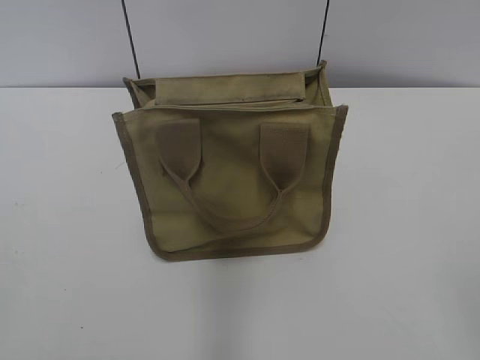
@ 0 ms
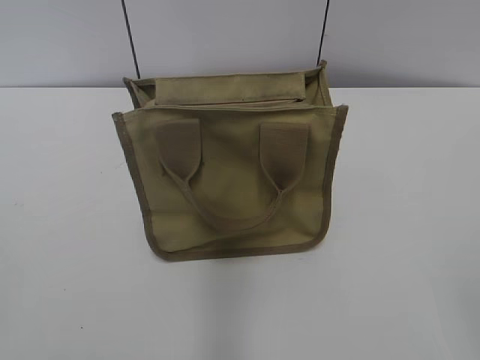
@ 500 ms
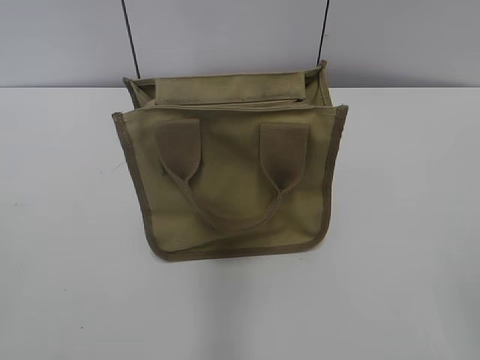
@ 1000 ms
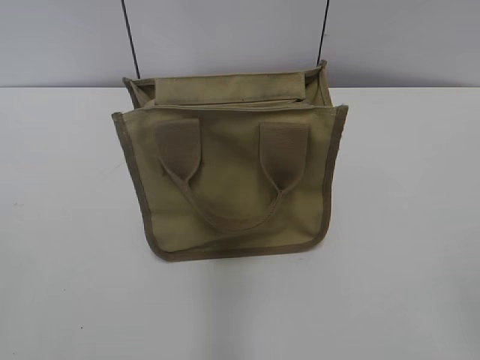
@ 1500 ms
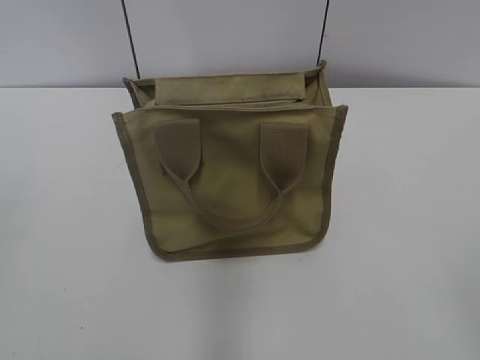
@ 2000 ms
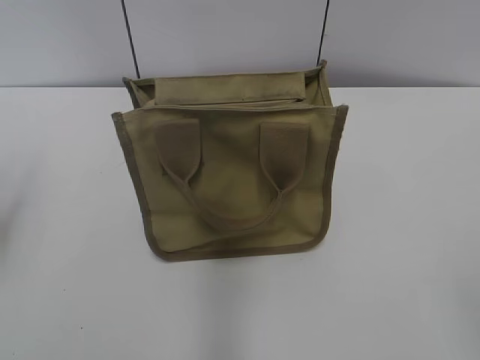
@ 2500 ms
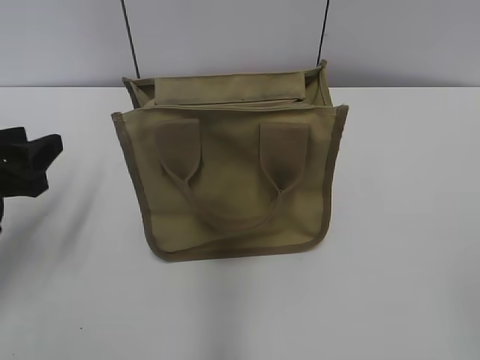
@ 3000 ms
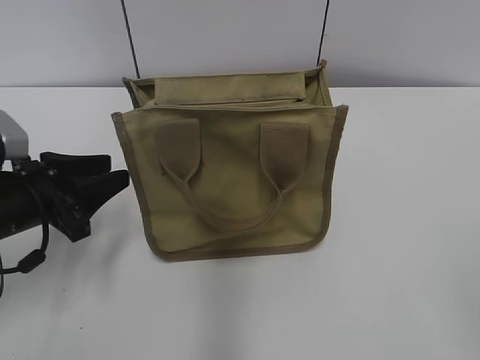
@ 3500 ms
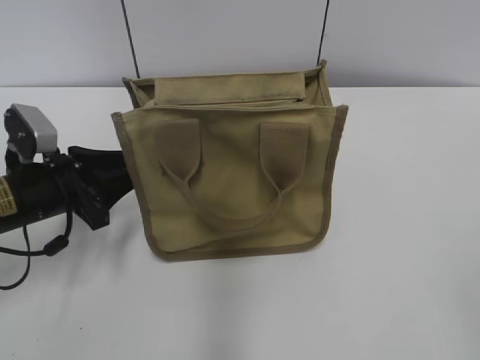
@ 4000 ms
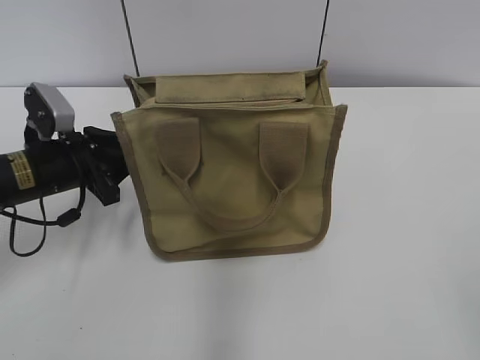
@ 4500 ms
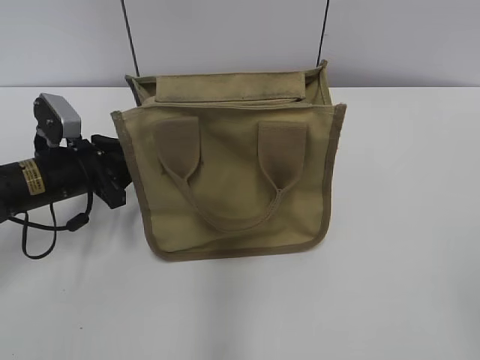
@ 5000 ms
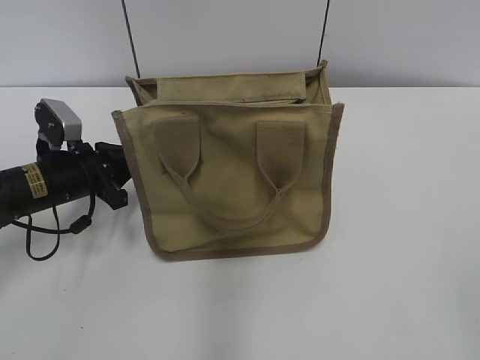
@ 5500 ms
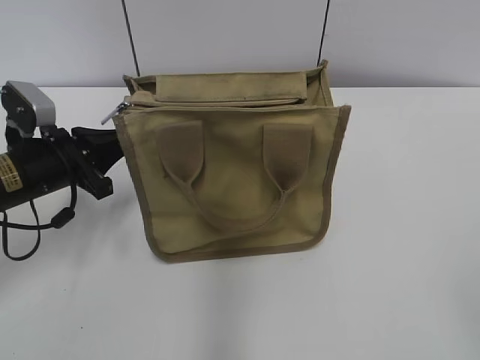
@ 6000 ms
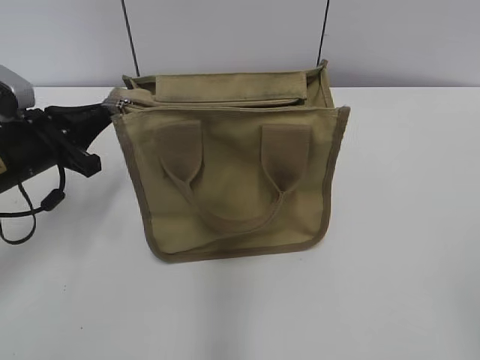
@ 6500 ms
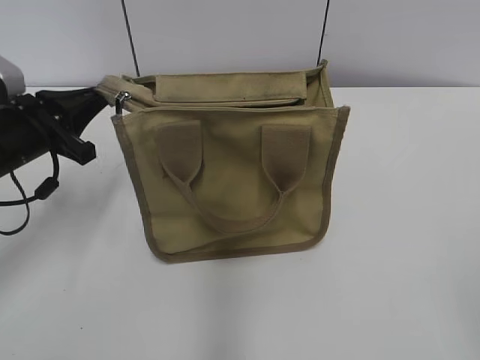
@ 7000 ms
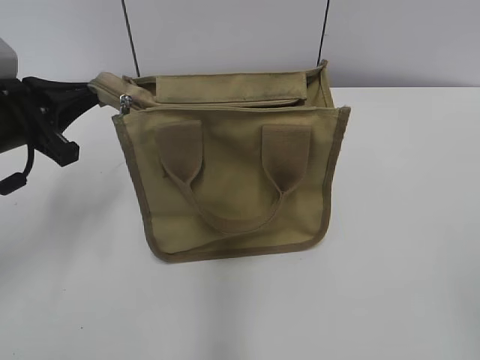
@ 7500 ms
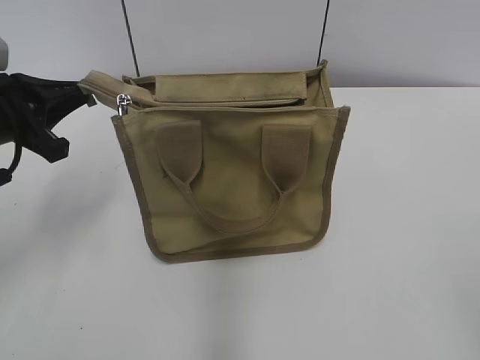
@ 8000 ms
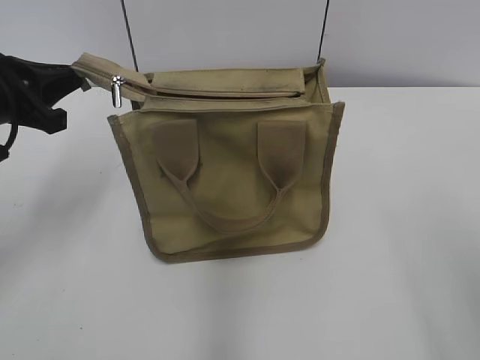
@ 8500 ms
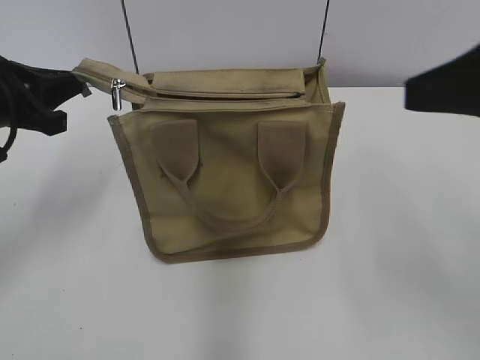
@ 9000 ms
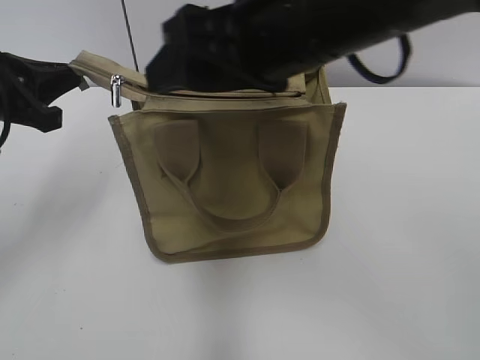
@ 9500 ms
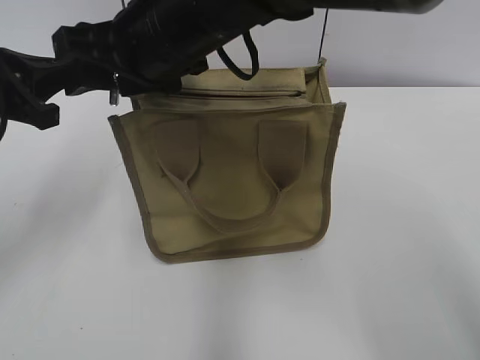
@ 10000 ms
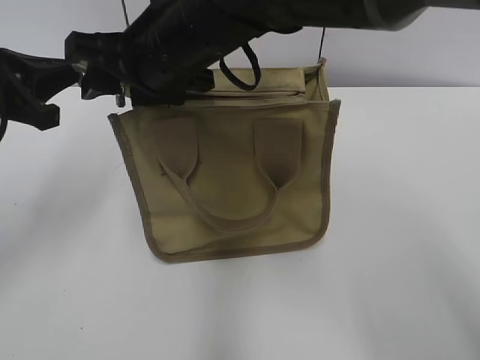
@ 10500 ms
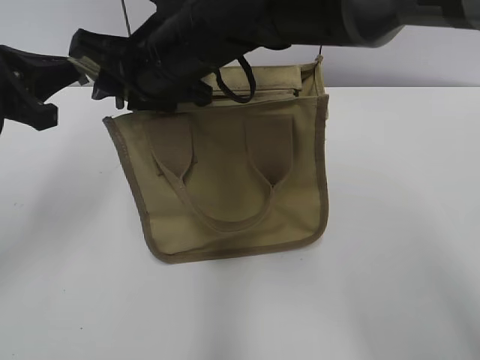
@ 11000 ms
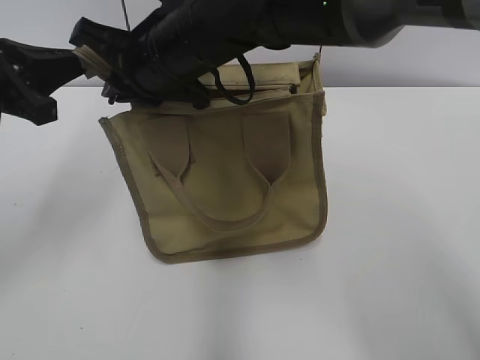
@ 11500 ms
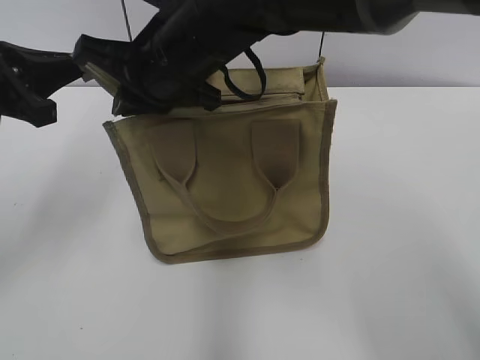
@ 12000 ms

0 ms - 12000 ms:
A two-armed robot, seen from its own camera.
2000 ms - 4000 ms: The left gripper heads forward, downward and to the right, covering about 30 cm.
4000 ms - 6000 ms: The left gripper closes.
6000 ms - 8000 ms: The left gripper is displaced upward by approximately 10 cm.
8000 ms - 10000 ms: The right gripper goes approximately 50 cm to the left and forward.
10000 ms - 12000 ms: The right gripper closes.

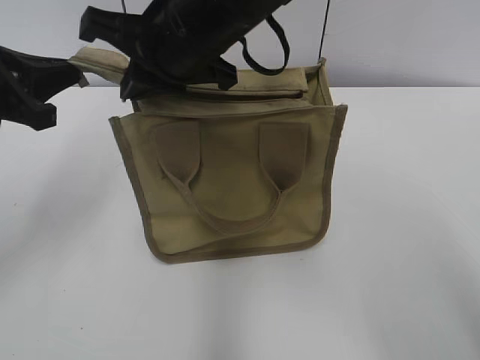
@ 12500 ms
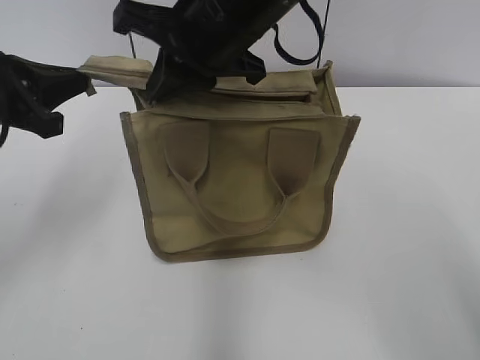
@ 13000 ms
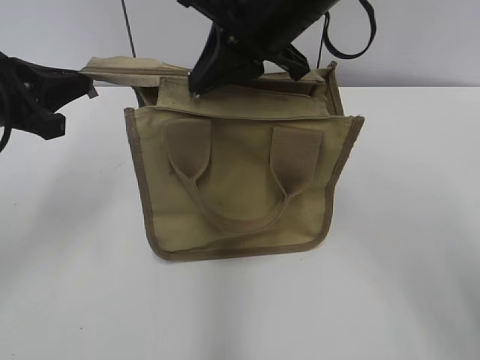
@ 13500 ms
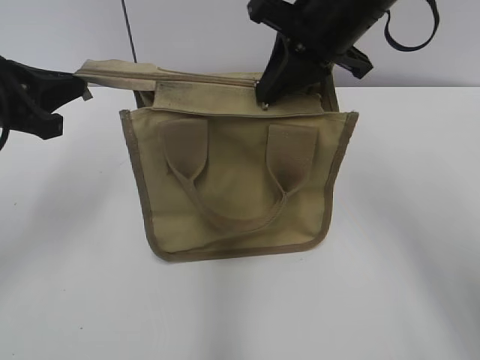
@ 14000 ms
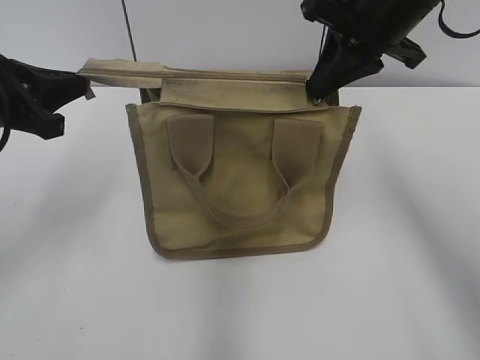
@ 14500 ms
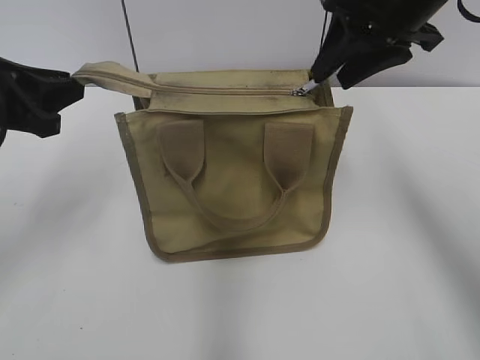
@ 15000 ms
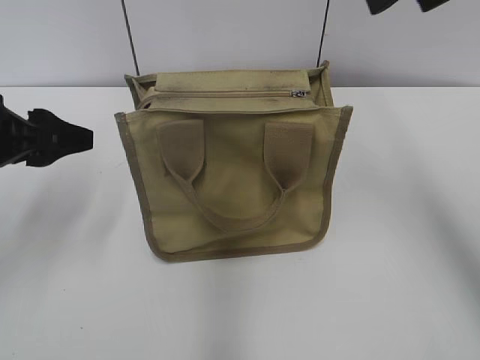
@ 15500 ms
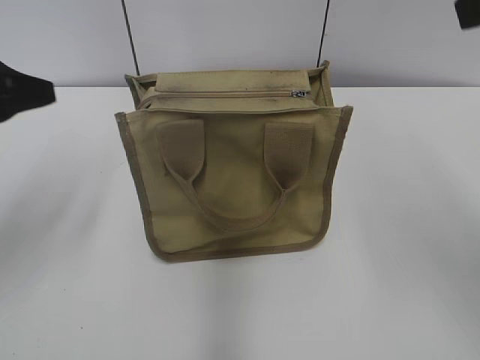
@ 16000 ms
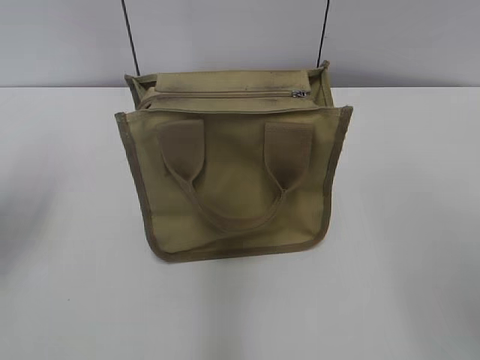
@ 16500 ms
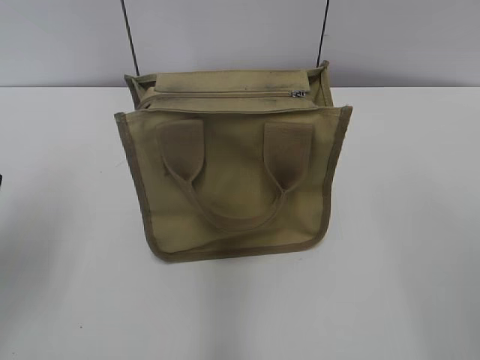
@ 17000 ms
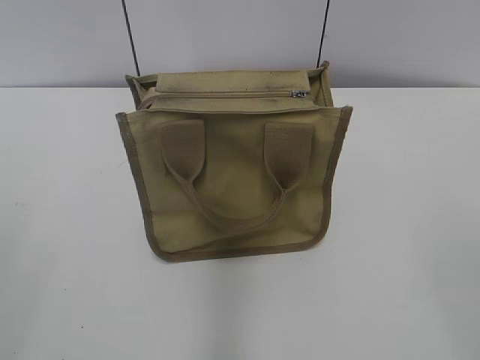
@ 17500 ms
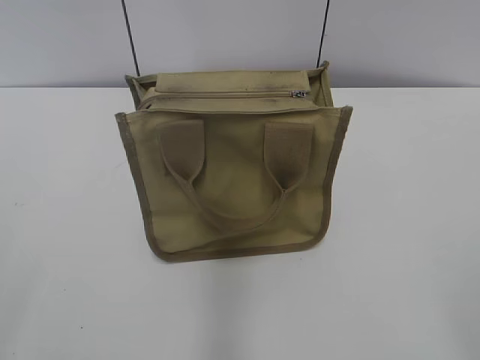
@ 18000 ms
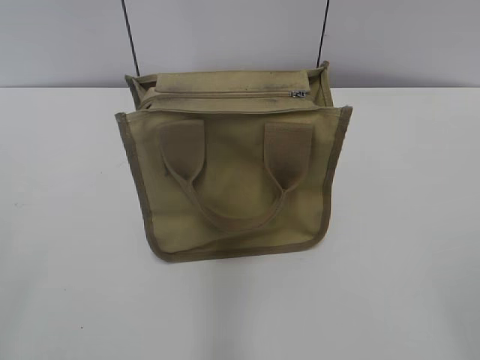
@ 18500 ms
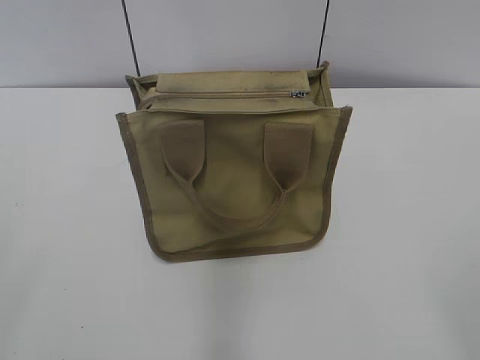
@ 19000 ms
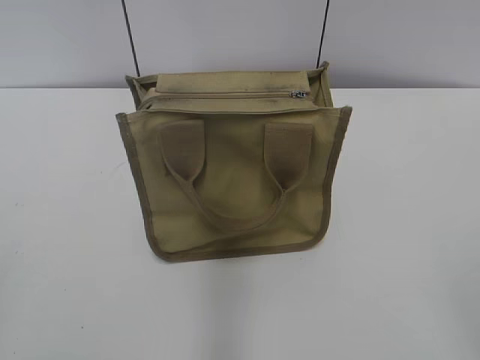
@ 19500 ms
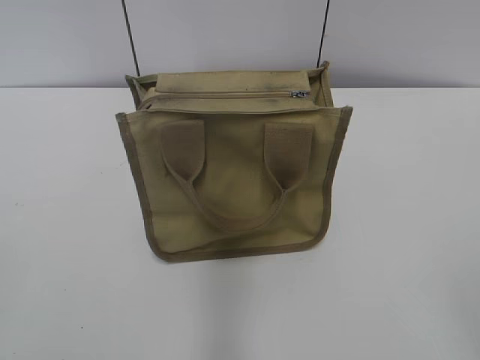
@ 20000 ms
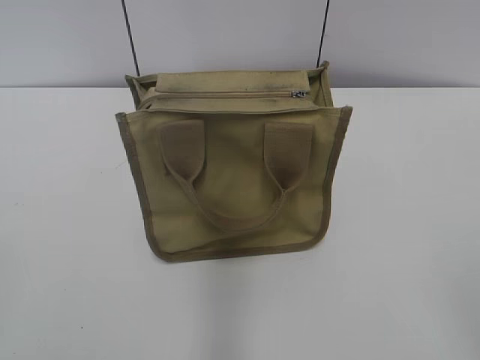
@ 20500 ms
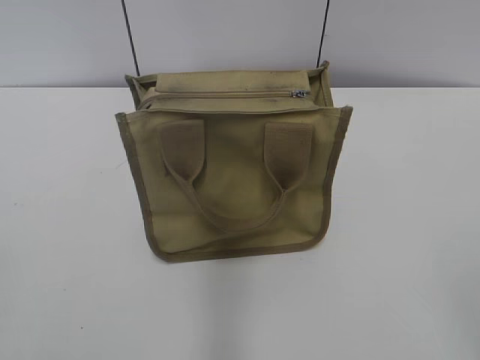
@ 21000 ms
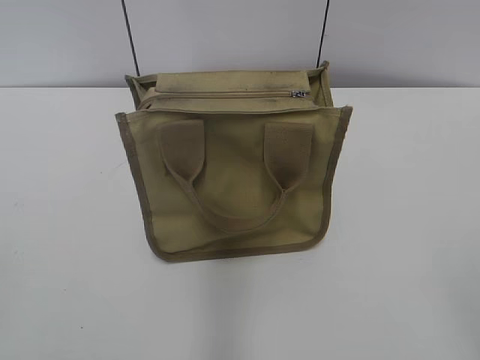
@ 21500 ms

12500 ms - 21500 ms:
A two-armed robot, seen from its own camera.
Step, 12500 ms - 14500 ms: Zip up the bag with your right hand.
12500 ms - 14500 ms: The right gripper moves to the right, roughly 15 cm.
14500 ms - 17000 ms: The left gripper is displaced backward by about 10 cm, and opens its fingers. The right gripper travels backward by approximately 30 cm, and opens.
17000 ms - 19500 ms: The left gripper travels backward by approximately 20 cm.

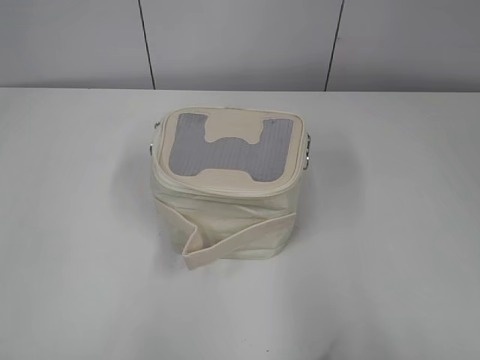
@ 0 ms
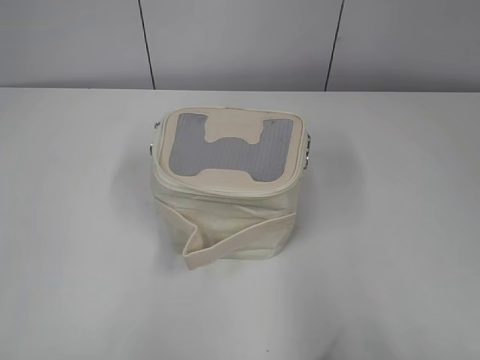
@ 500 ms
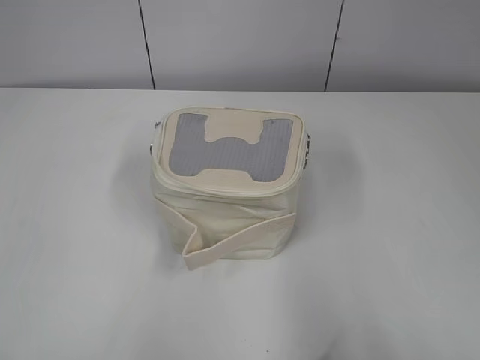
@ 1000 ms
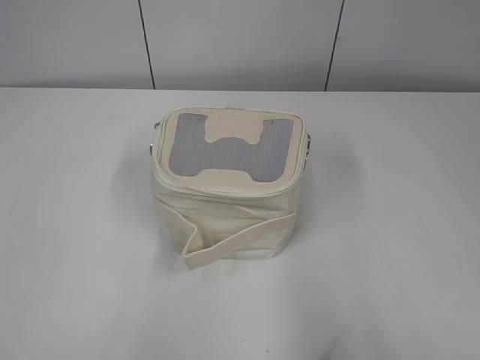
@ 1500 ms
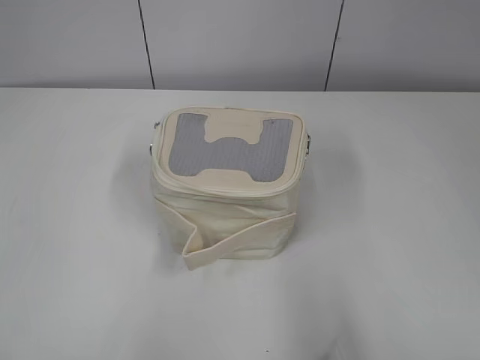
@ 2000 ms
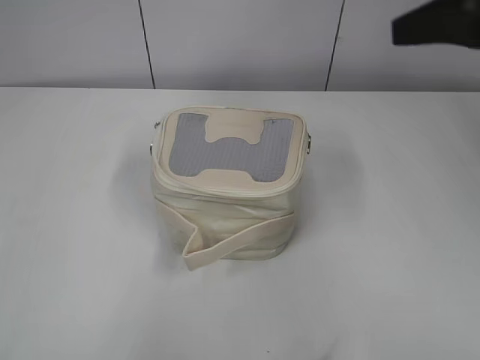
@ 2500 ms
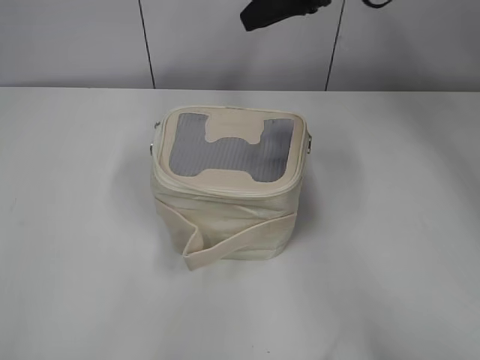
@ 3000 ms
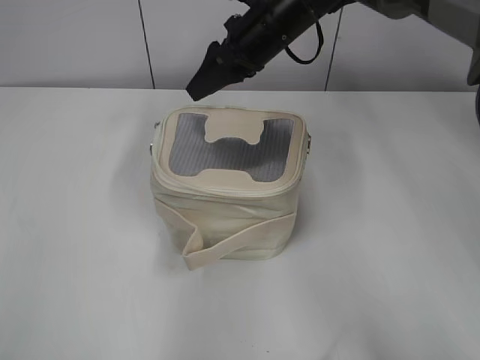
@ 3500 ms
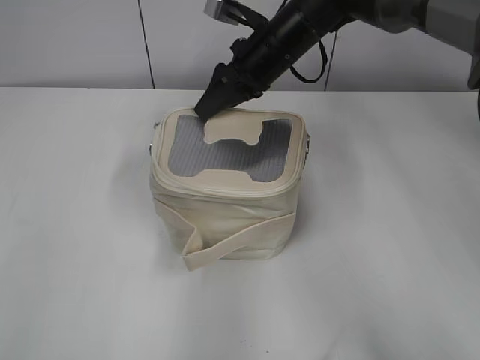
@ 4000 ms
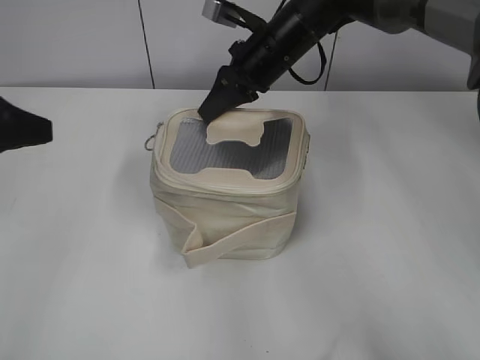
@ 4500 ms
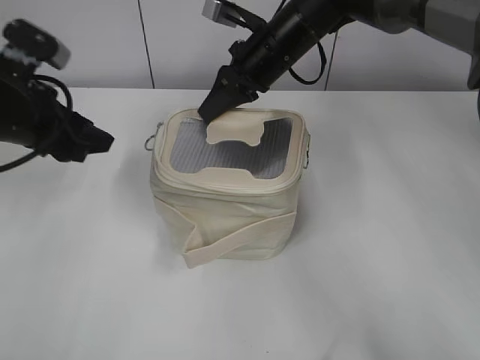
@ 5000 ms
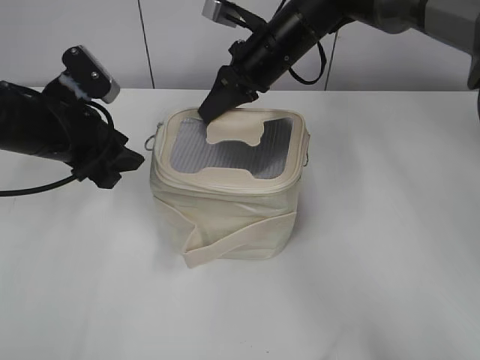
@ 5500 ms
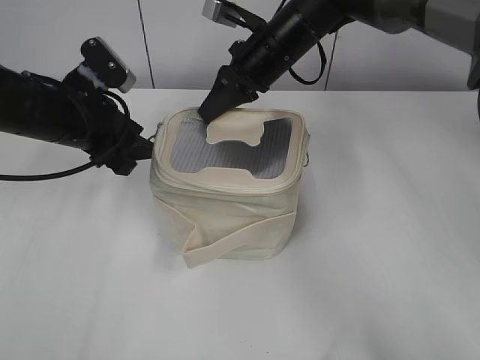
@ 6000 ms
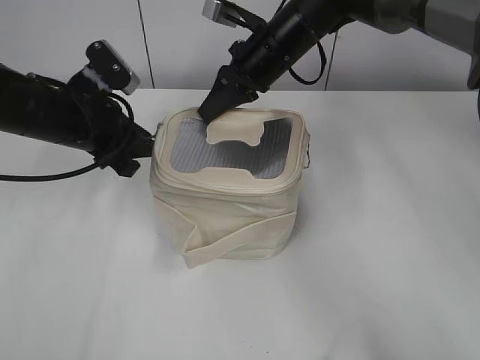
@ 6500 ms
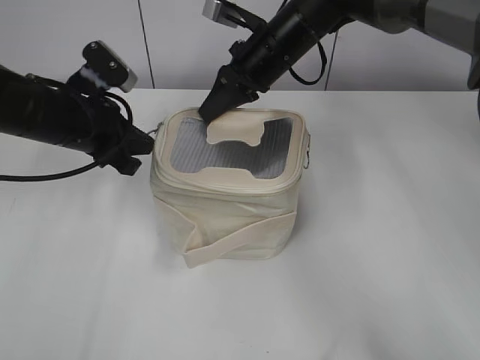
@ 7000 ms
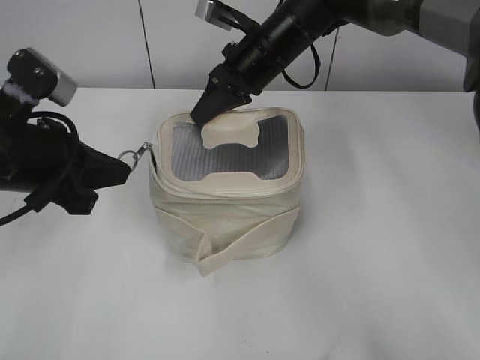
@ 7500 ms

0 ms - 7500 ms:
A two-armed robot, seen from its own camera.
2000 ms - 4000 ms: The left gripper heads forward, covering some 10 cm. The right gripper is displaced forward and to the left by approximately 50 cm.
4000 ms - 5500 ms: The right gripper closes its fingers. The left gripper heads forward, downward and to the right, covering about 25 cm.
5500 ms - 7500 ms: The left gripper moves backward, roughly 5 cm, and closes.
